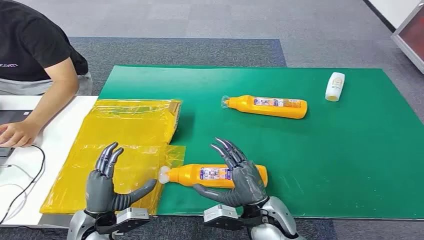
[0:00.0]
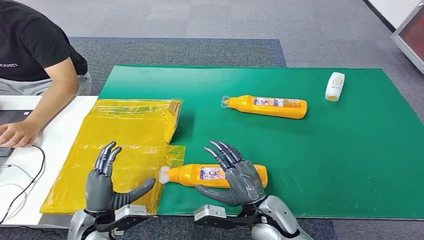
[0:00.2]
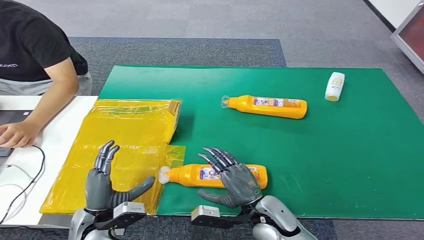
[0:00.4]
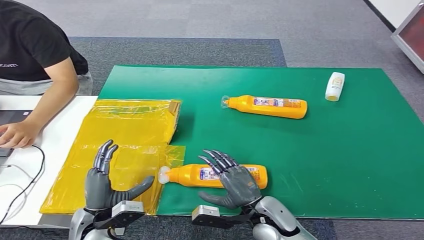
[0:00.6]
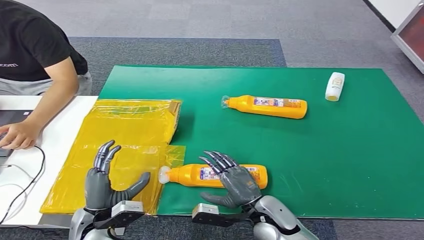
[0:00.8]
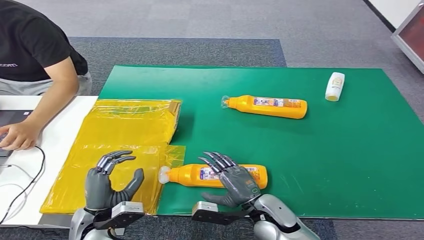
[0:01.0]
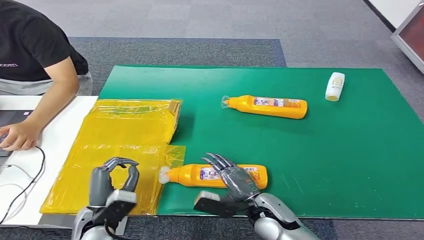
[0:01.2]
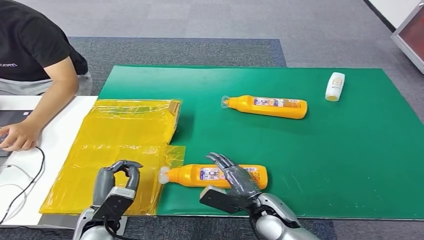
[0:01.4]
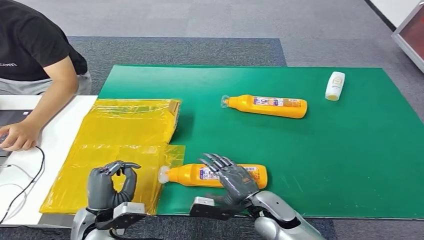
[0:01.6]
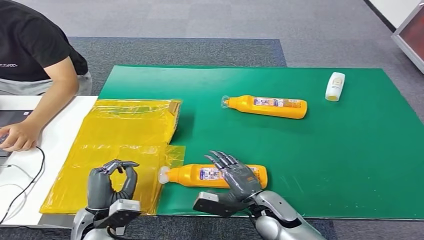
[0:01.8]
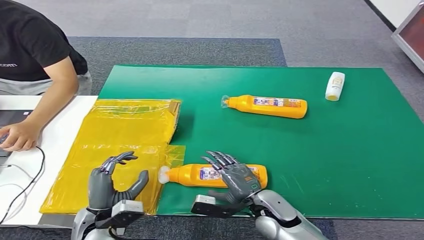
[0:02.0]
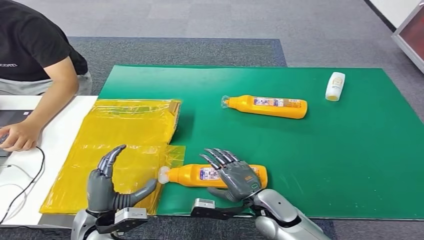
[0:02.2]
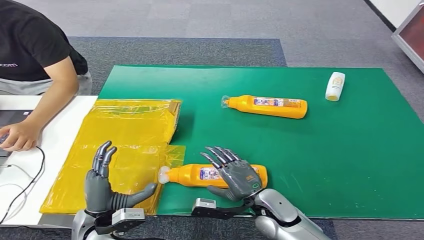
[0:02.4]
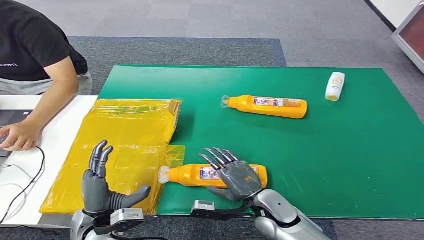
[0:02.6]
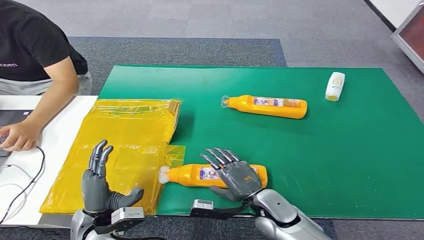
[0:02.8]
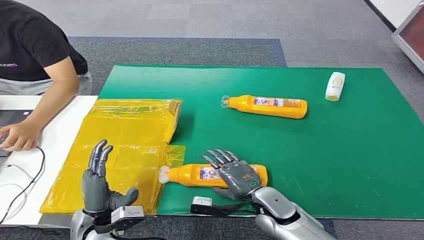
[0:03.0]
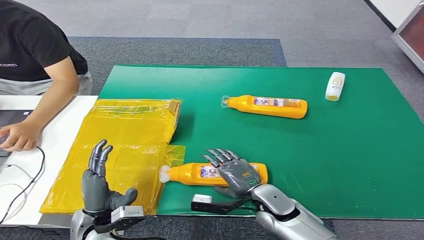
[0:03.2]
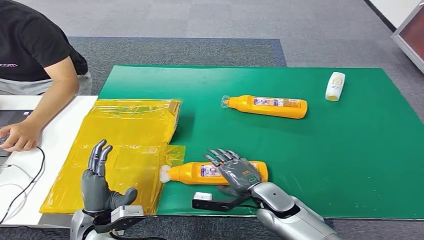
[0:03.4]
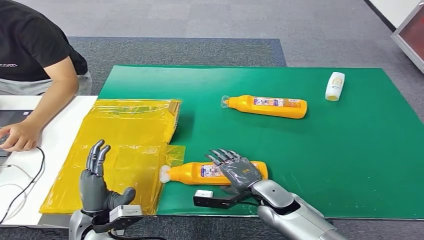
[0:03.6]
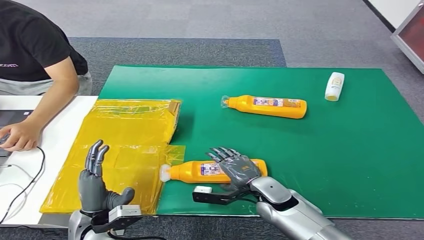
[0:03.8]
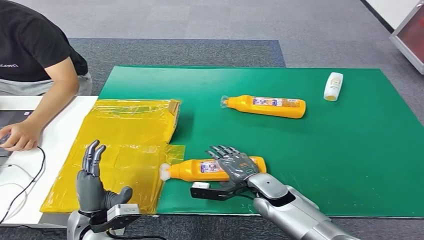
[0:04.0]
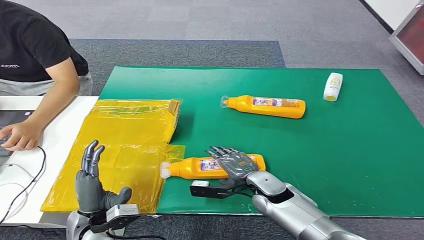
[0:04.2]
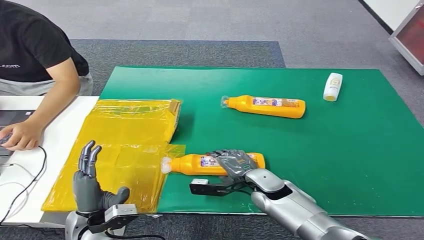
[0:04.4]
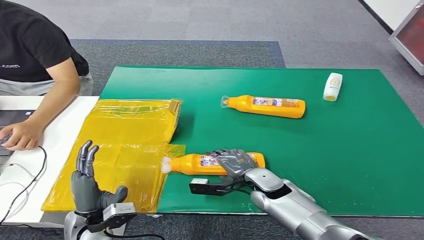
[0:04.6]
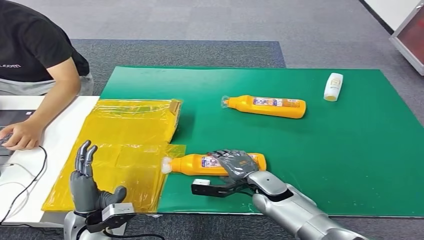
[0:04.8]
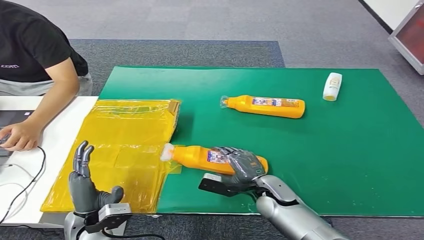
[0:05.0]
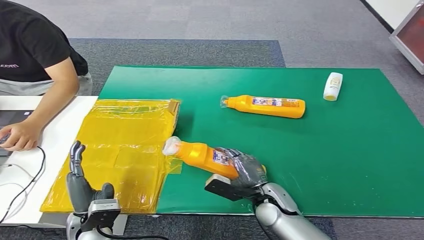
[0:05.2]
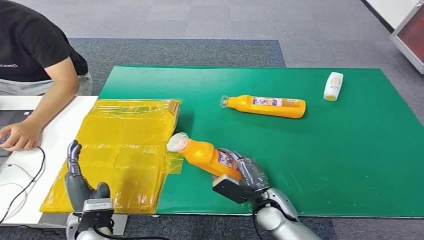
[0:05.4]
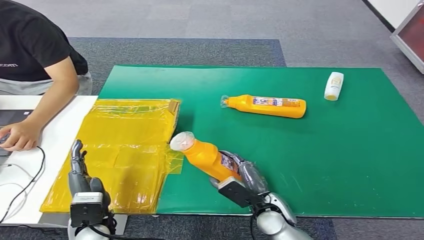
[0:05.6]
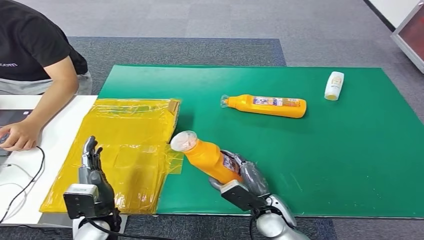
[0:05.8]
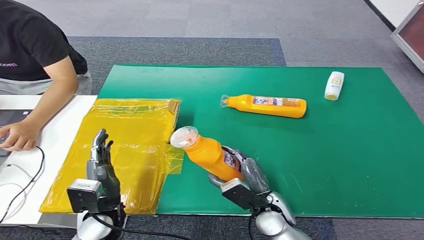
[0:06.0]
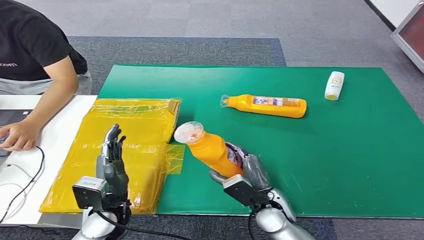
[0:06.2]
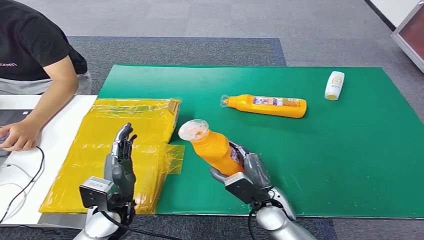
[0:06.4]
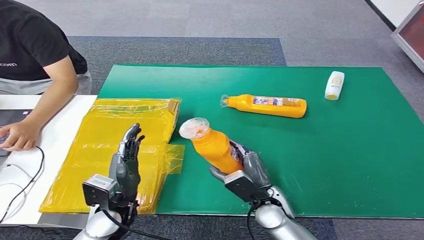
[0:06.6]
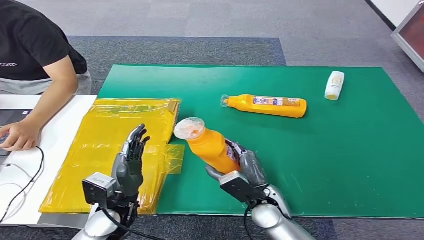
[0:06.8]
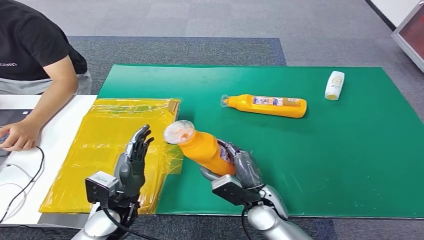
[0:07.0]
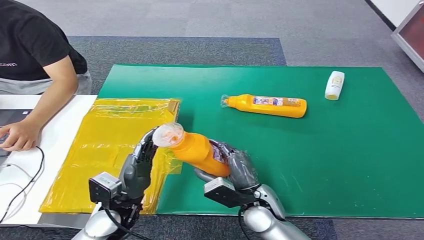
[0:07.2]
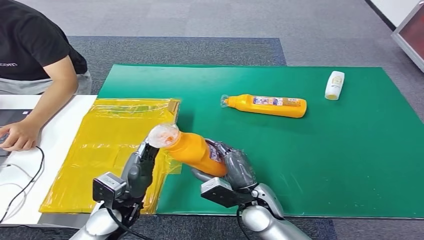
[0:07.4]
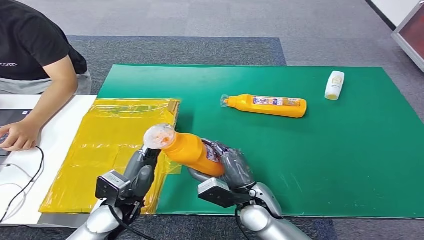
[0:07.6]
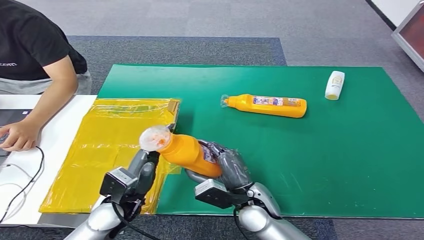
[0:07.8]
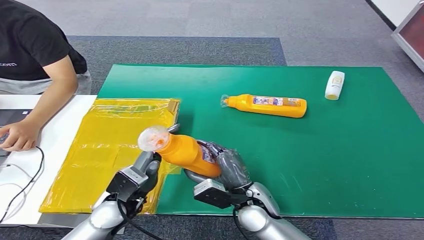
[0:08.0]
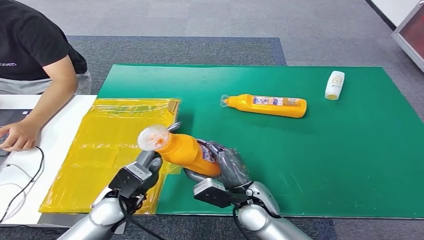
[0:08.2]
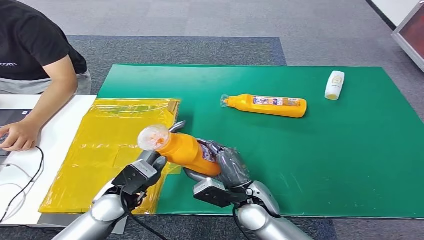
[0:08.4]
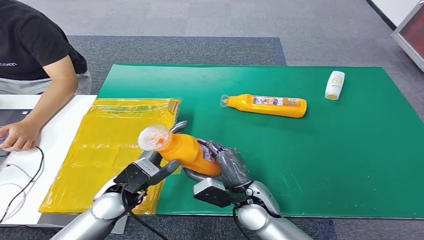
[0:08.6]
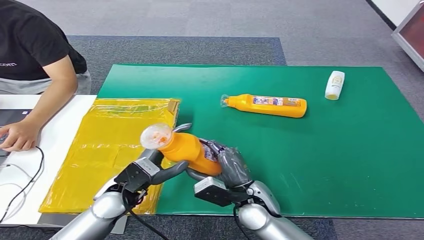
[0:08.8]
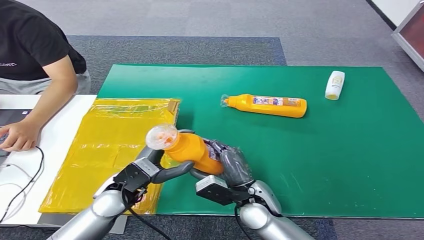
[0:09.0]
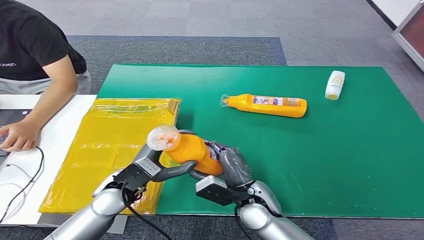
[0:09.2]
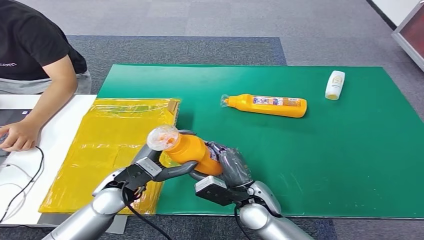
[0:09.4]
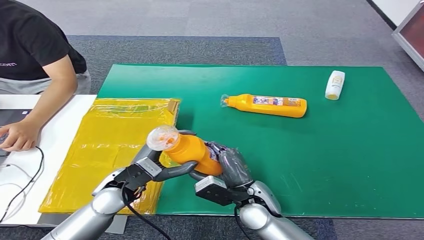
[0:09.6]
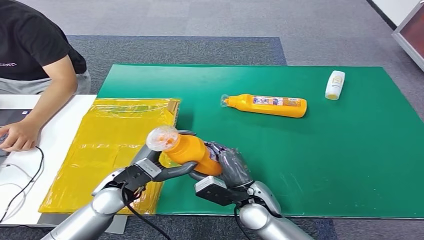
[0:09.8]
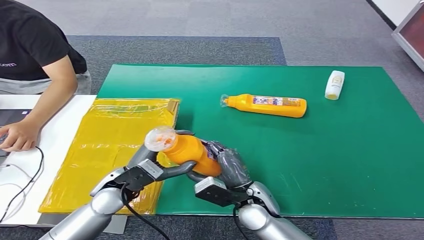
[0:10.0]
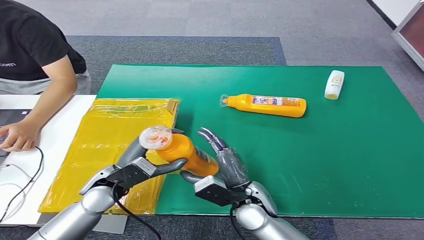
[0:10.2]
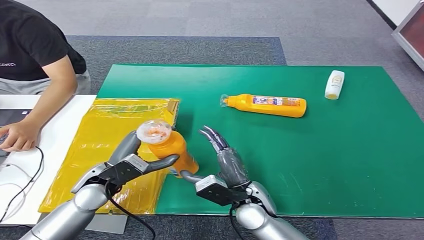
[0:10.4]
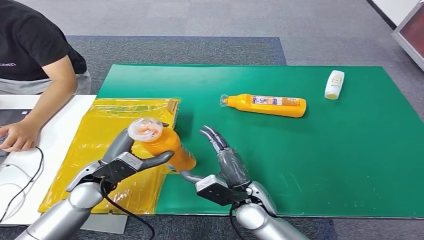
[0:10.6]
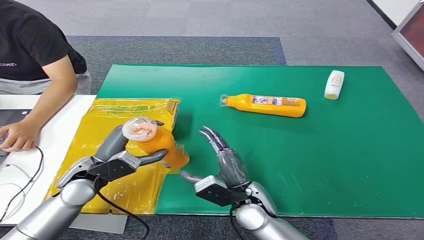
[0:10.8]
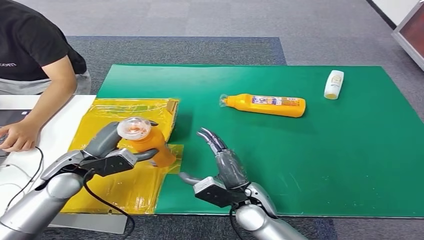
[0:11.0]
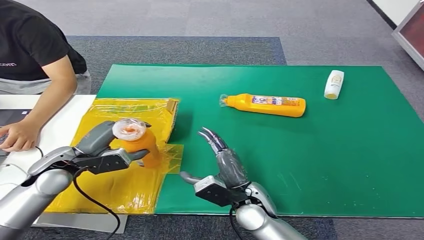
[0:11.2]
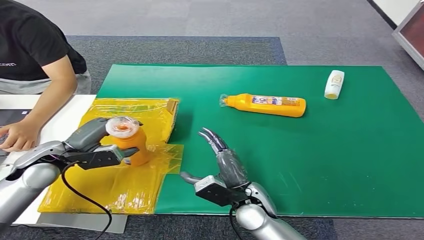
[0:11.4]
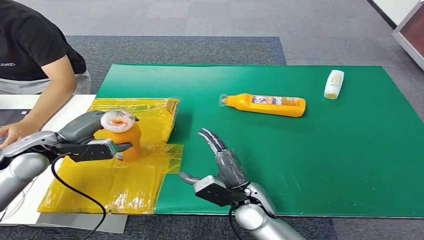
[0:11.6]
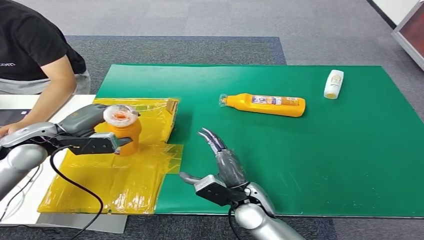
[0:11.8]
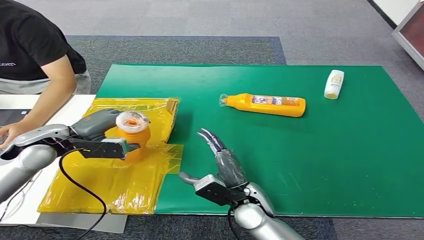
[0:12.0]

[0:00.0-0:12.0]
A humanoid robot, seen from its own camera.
Step, 0:00.0 to 0:07.4: Pick up the bottle from the table.
0:01.6 to 0:03.0: The hands move only a little.
0:03.0 to 0:04.4: The right hand moves forward, roughly 5 cm.
0:04.4 to 0:06.0: The right hand heads backward, covering some 10 cm.
0:06.0 to 0:07.6: The right hand moves approximately 5 cm.
0:07.6 to 0:09.0: The hands move only a little.
0:09.0 to 0:10.4: The left hand shifts by about 5 cm.
0:10.4 to 0:12.0: The left hand is displaced to the left, upward and forward by roughly 15 cm.

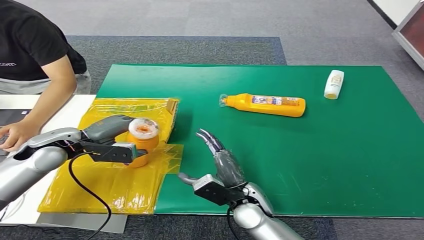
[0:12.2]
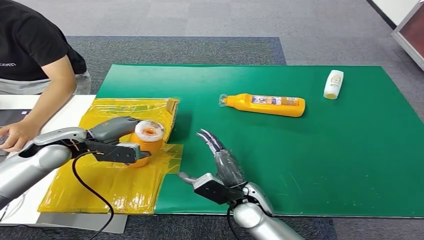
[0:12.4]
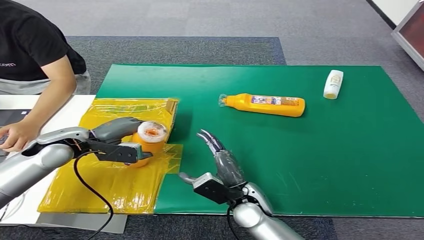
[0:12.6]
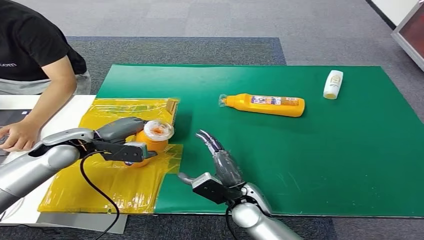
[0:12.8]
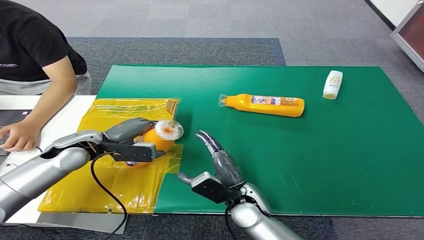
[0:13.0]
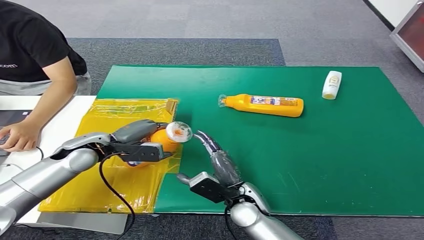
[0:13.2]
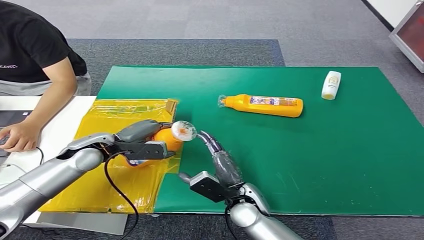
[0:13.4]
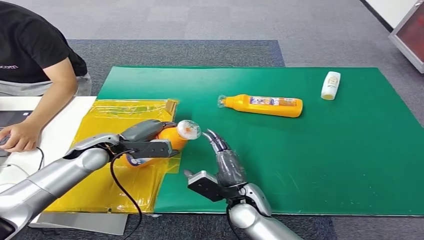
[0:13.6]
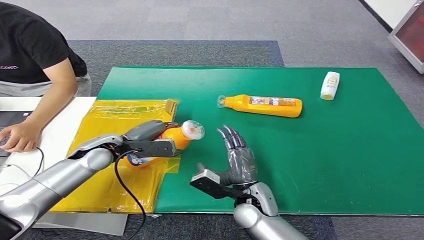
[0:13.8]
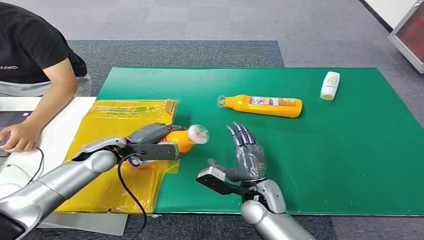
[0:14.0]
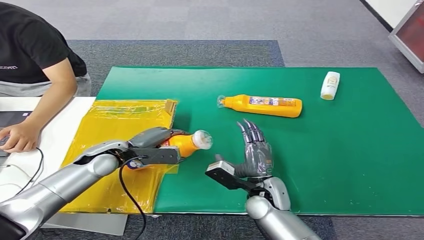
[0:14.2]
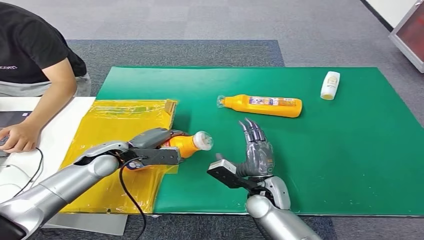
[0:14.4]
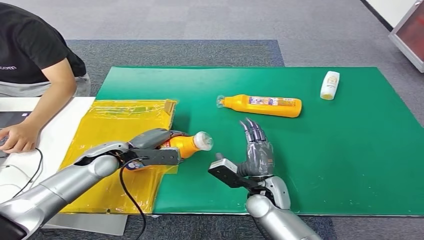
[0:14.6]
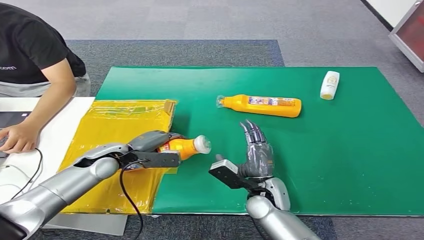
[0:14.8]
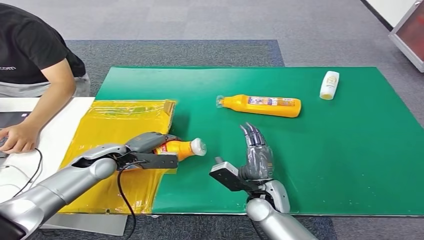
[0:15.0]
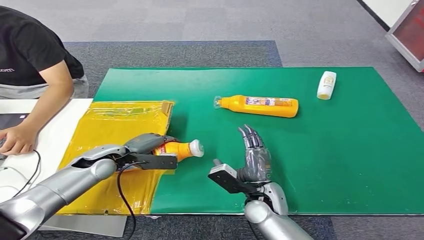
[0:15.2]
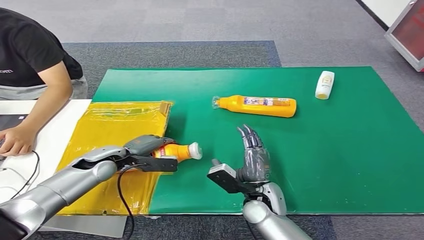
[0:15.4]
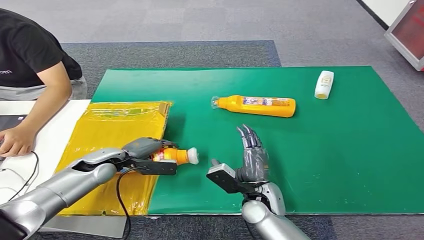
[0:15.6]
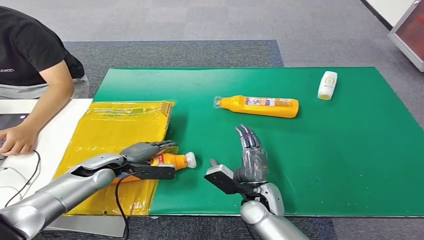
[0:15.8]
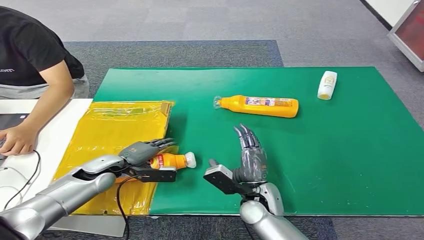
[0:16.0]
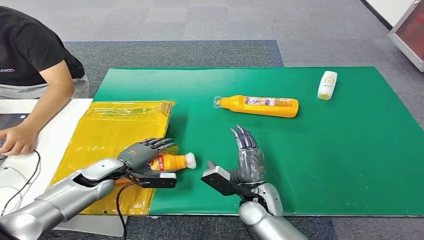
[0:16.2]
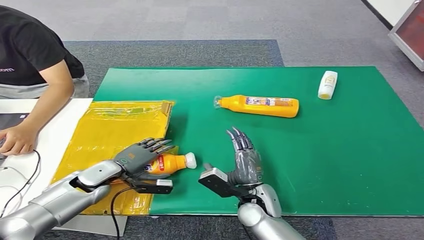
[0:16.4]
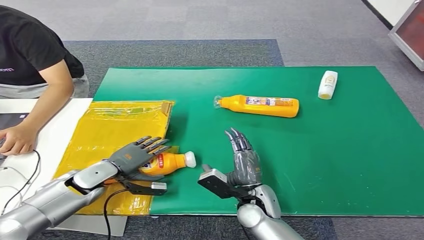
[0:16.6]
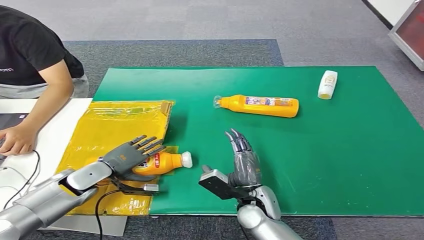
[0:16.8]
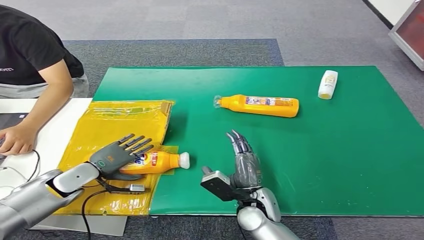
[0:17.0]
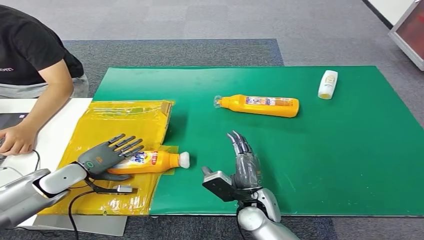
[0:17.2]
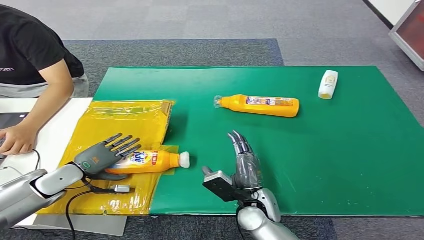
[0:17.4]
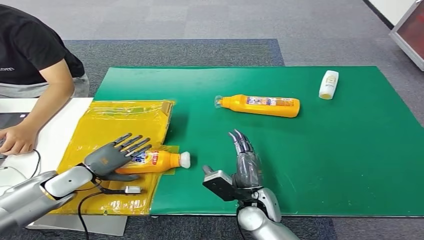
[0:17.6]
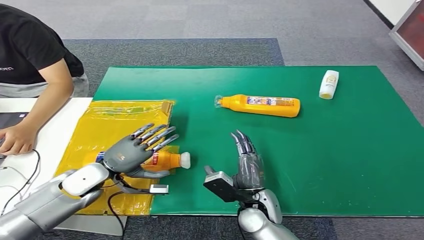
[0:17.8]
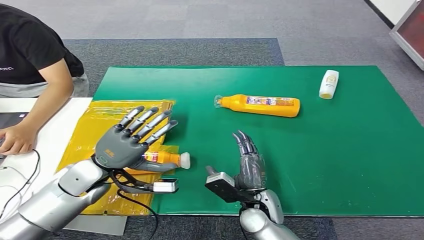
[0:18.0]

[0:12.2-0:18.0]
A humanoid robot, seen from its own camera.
Step, 0:12.2 to 0:18.0: Turn the bottle to the front side.
0:15.0 to 0:16.6: The left hand moves approximately 5 cm.
0:16.6 to 0:18.0: The left hand moves upward, about 10 cm, and goes to the left and returns, about 10 cm each way.
